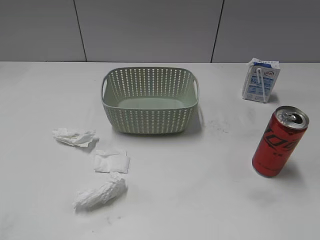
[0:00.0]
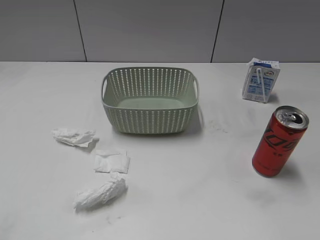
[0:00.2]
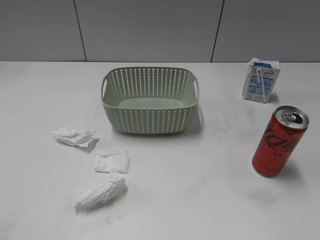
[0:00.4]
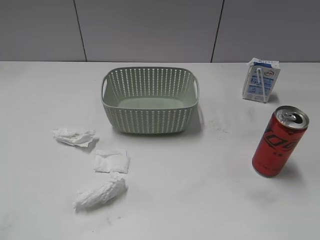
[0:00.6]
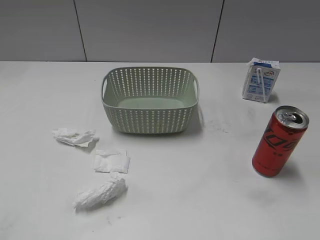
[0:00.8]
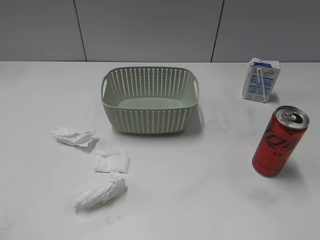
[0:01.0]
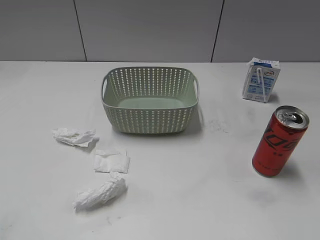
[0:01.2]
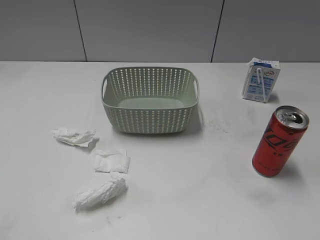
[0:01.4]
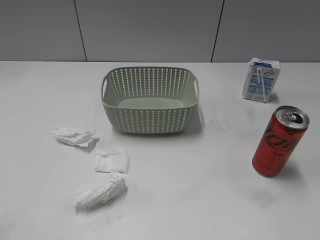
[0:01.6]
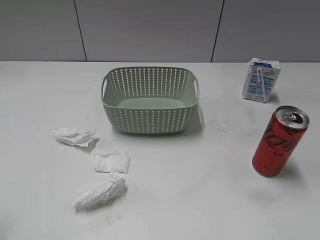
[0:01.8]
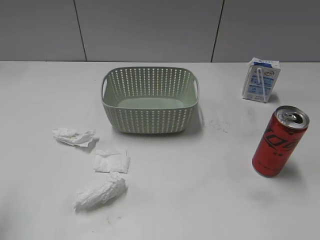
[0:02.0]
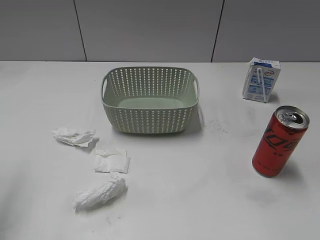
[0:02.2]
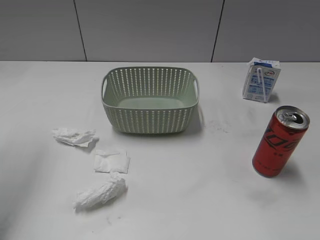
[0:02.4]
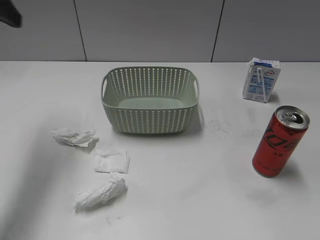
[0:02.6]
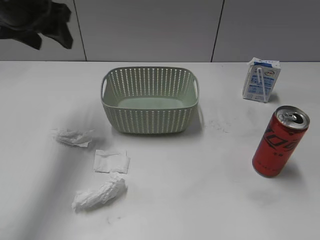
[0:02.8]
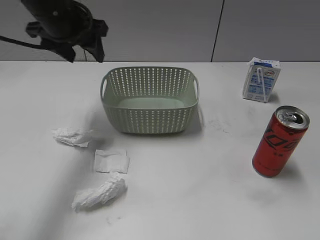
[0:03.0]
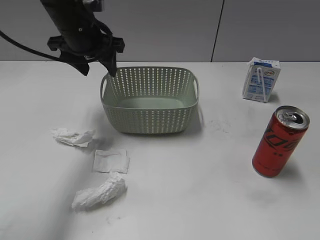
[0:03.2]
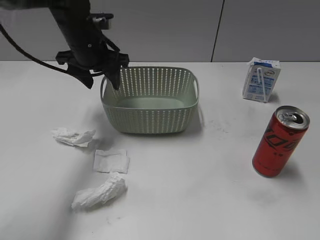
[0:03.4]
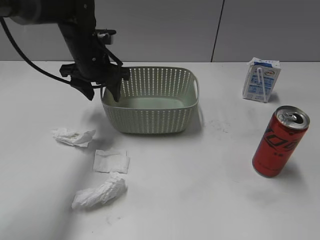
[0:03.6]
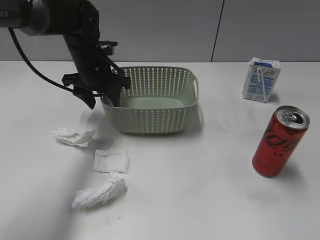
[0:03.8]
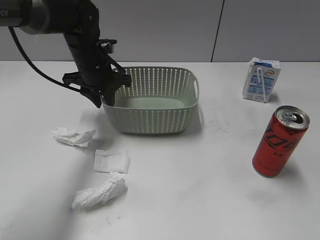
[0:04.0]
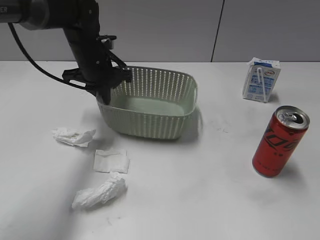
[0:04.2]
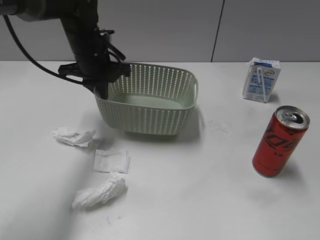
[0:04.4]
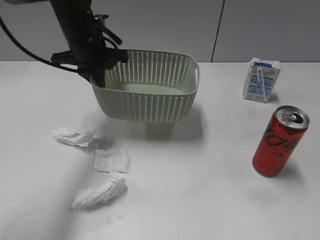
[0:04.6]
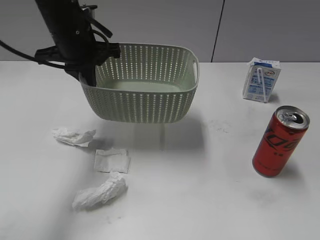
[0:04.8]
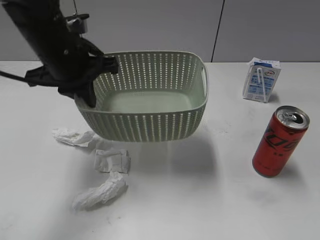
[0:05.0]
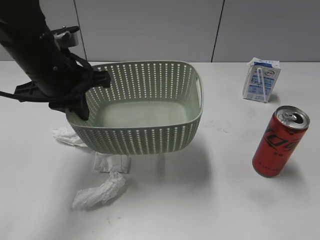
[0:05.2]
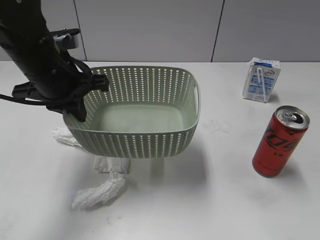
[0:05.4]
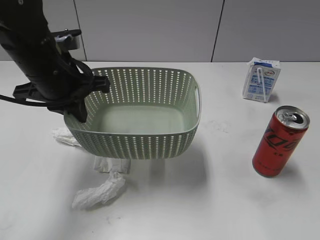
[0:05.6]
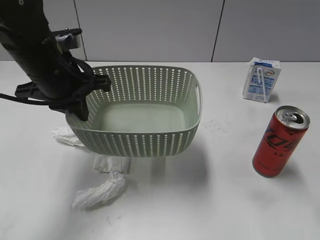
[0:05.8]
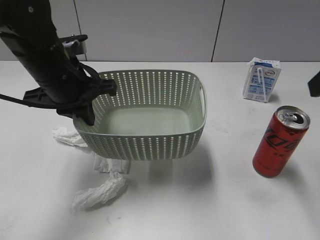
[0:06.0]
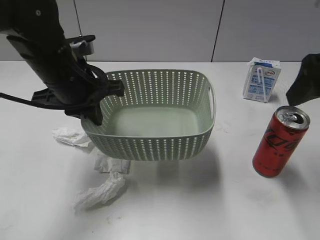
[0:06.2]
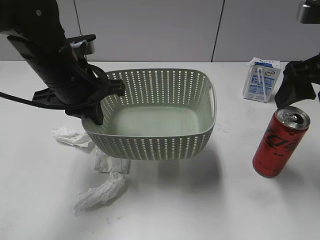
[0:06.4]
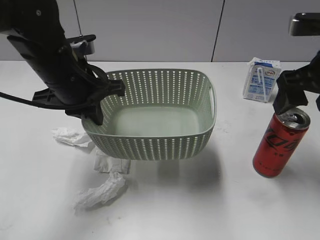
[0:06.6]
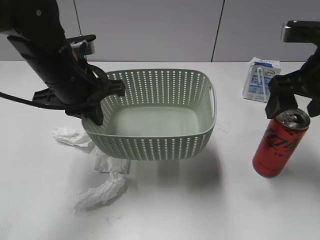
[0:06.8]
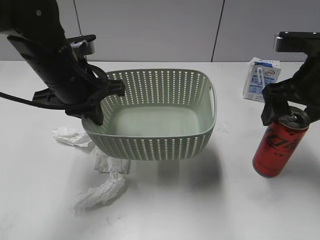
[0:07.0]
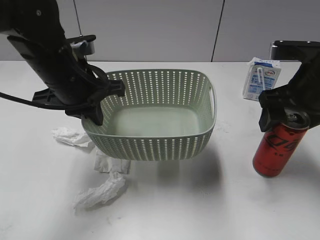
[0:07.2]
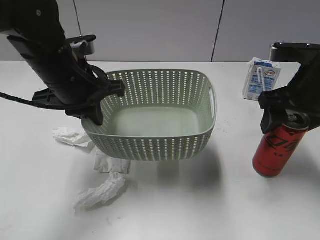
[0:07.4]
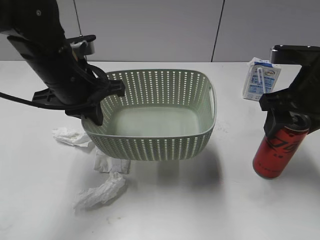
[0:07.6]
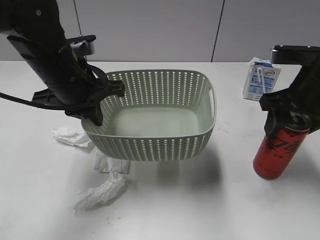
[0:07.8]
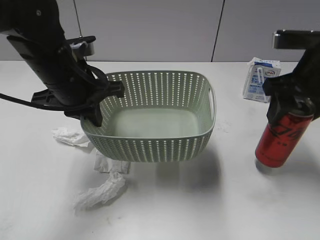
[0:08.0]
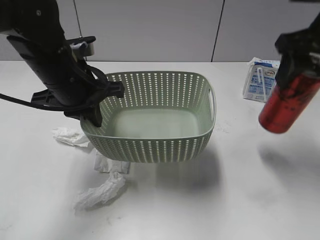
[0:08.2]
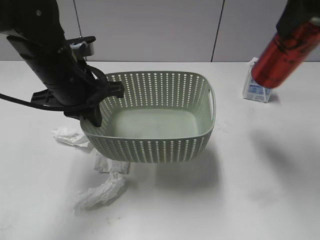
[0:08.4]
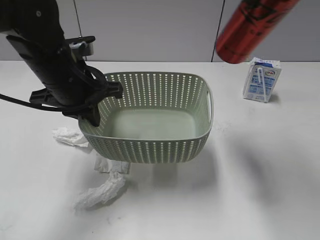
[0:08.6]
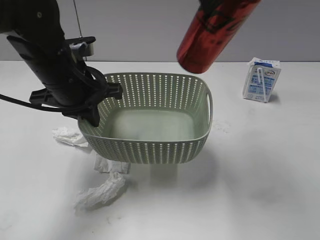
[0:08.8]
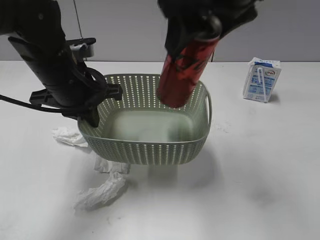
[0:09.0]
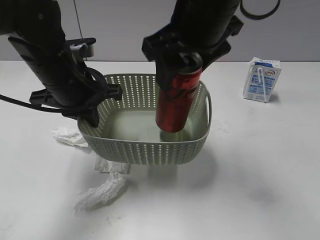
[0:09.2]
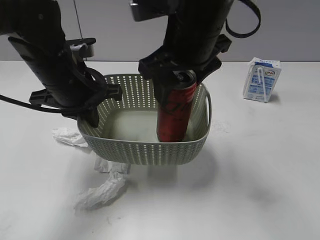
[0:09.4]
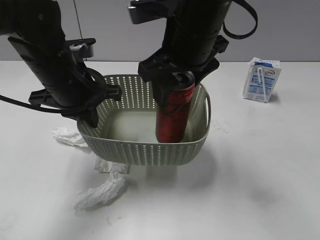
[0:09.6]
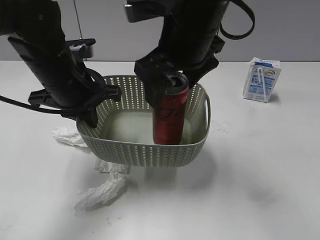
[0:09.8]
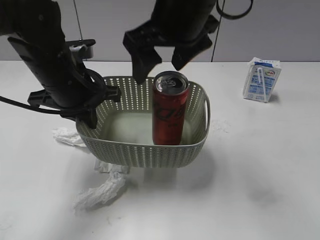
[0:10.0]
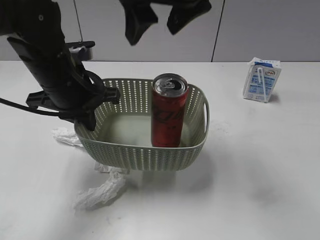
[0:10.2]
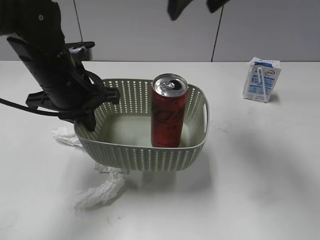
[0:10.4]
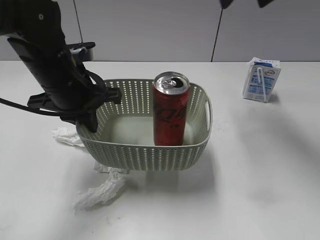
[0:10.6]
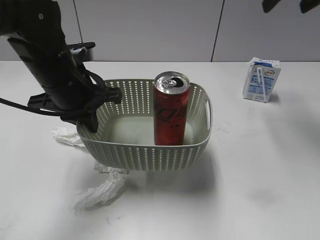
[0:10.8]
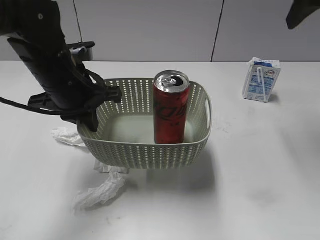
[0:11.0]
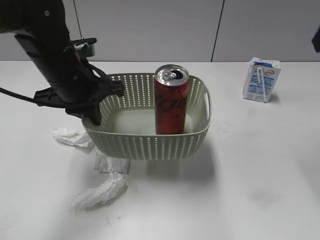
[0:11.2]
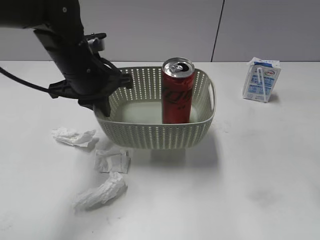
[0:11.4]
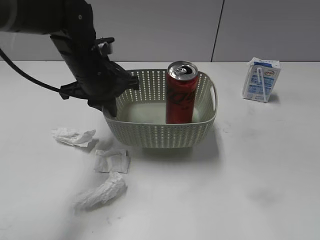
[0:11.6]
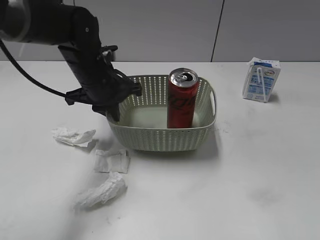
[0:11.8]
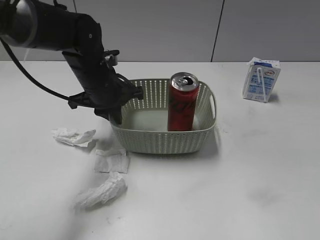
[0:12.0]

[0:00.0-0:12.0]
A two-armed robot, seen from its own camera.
Step, 0:02.6 to 0:04.0: Grasp the basket with left gripper.
Step, 0:04.2 to 0:05.8: Lift the basket with left gripper.
Step, 0:06.0 to 0:07.8: Grasp the cola can with right gripper.
Step, 0:08.0 to 0:09.8: Place the cola can in the basket with right gripper.
0:01.6 to 0:03.0: The left gripper is displaced forward and to the right by about 40 cm.
0:03.0 to 0:04.4: The left gripper goes approximately 10 cm downward, and closes up.
0:04.4 to 0:06.0: The right gripper goes roughly 20 cm forward, and opens its fingers, while the left gripper moves backward, some 10 cm.
0:06.0 to 0:07.6: The right gripper moves downward and forward, roughly 15 cm, and closes up.
0:07.6 to 0:09.0: The right gripper is displaced to the left and upward by roughly 20 cm.
0:09.0 to 0:10.4: The right gripper travels forward by roughly 10 cm, and opens.
0:10.4 to 0:12.0: The right gripper goes roughly 35 cm backward and to the right, and closes its fingers. Meanwhile the left gripper heads forward and downward, covering approximately 10 cm.

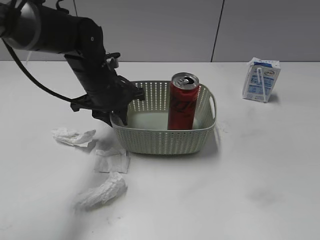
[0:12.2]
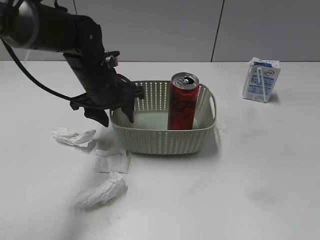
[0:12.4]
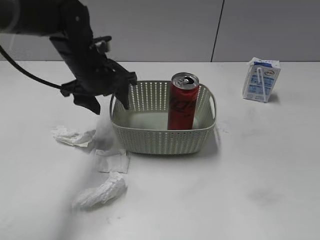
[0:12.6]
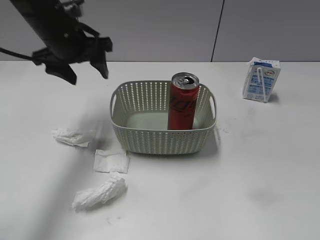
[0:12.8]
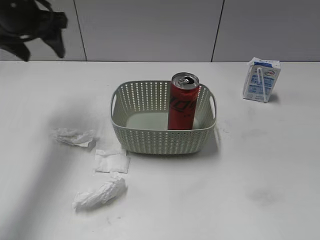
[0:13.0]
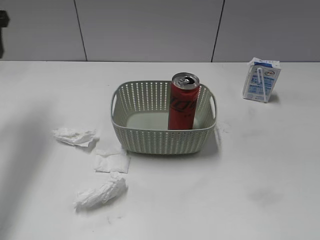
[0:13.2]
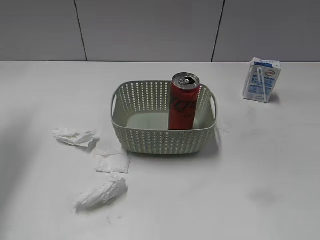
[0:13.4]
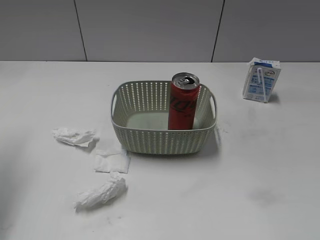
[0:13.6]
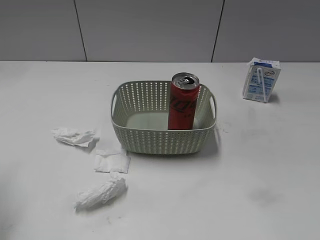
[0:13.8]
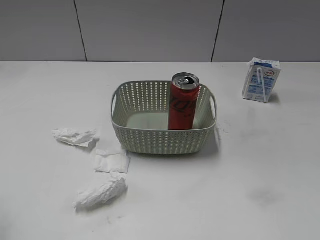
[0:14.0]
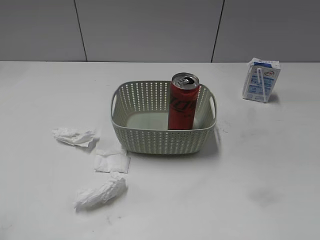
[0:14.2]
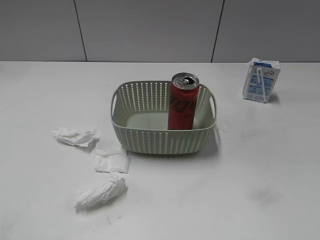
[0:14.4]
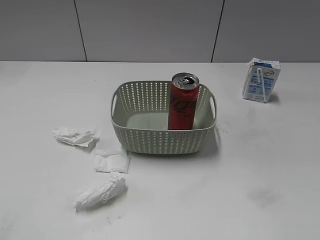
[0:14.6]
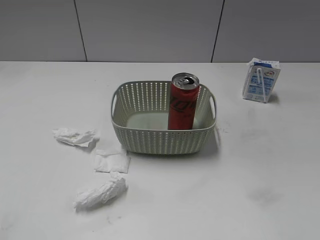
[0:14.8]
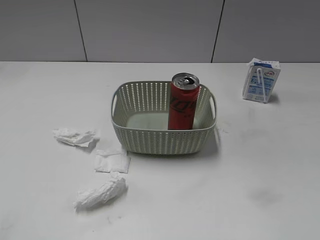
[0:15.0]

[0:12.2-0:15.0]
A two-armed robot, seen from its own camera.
0:12.2 to 0:13.6: The left gripper shifts about 30 cm to the left, upward and backward, and opens its fingers.
0:13.6 to 0:15.0: The left gripper goes about 30 cm backward.
